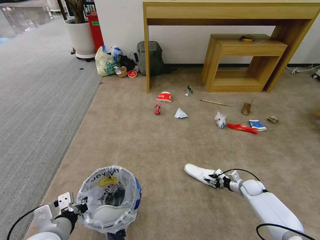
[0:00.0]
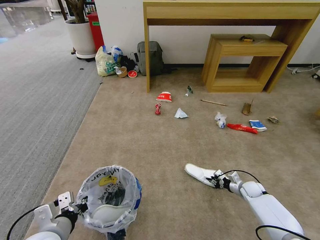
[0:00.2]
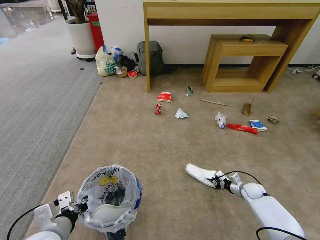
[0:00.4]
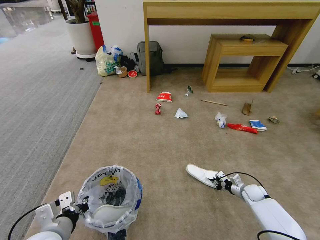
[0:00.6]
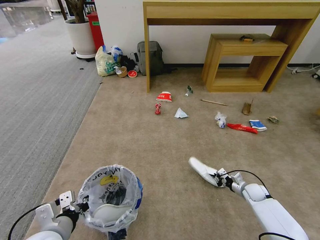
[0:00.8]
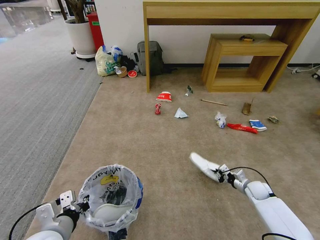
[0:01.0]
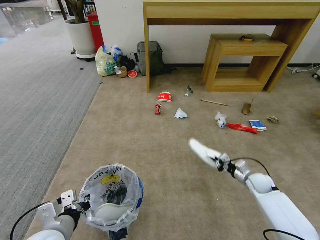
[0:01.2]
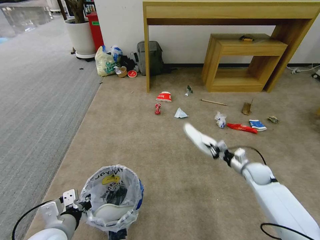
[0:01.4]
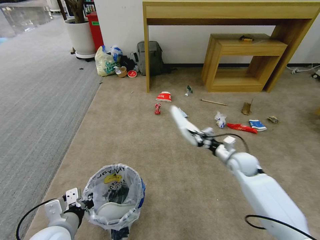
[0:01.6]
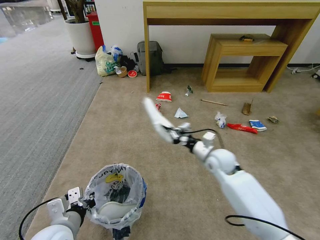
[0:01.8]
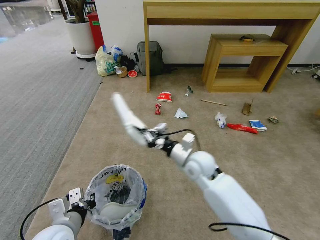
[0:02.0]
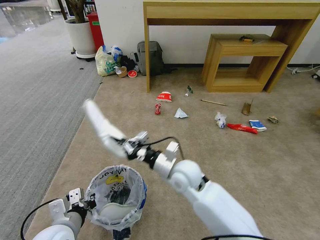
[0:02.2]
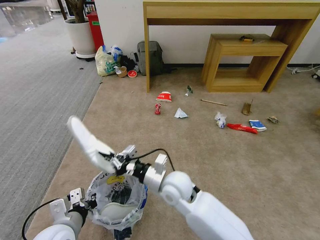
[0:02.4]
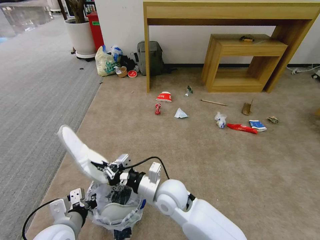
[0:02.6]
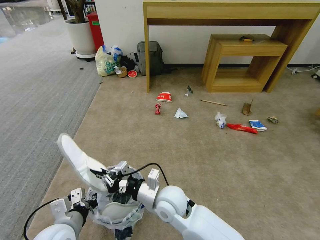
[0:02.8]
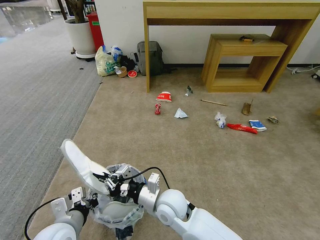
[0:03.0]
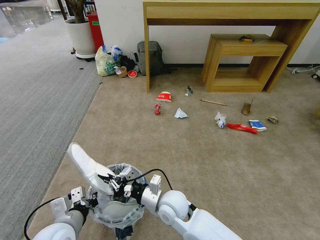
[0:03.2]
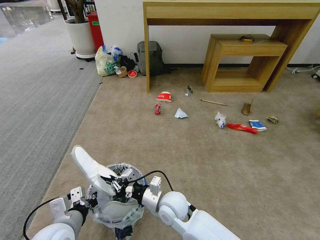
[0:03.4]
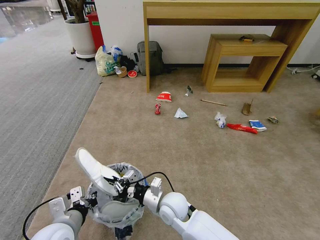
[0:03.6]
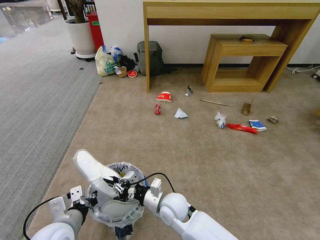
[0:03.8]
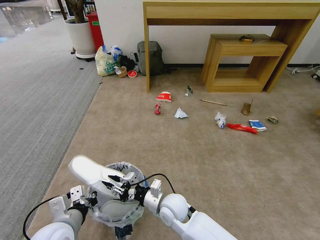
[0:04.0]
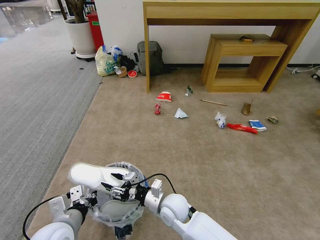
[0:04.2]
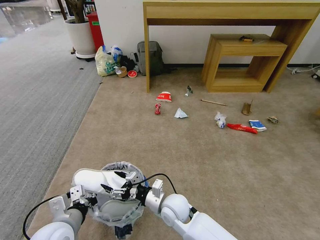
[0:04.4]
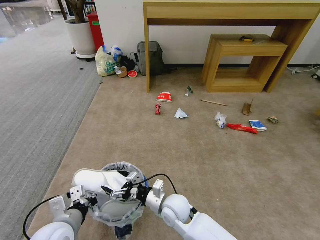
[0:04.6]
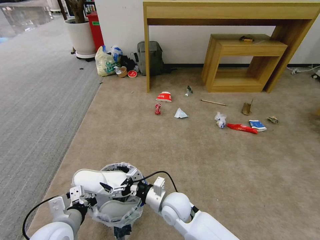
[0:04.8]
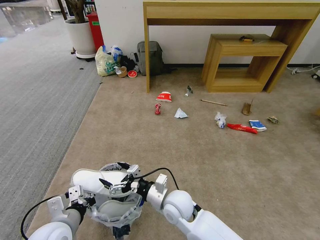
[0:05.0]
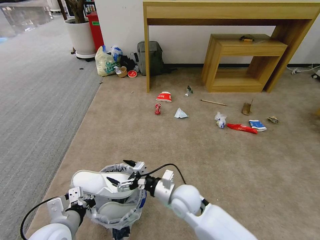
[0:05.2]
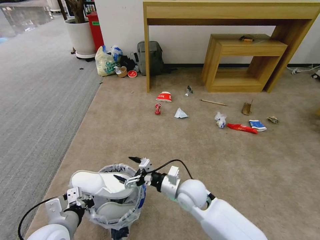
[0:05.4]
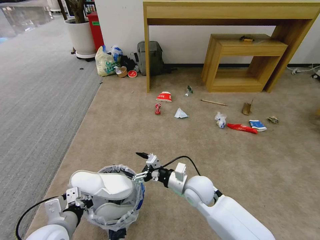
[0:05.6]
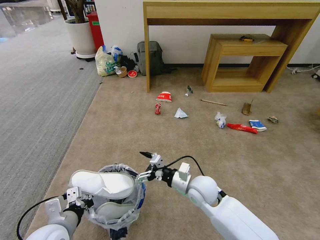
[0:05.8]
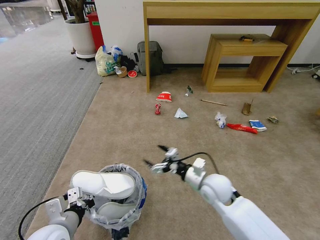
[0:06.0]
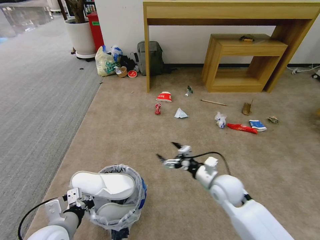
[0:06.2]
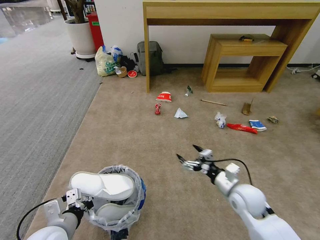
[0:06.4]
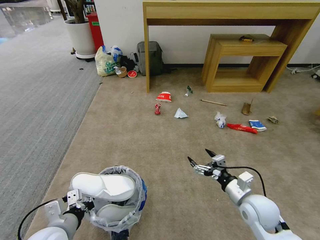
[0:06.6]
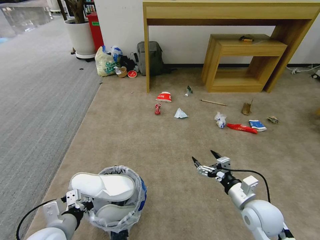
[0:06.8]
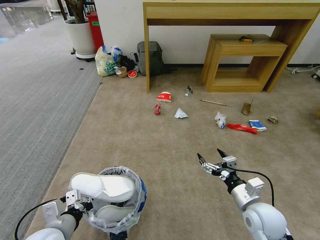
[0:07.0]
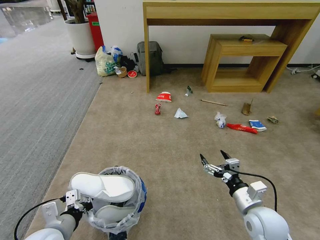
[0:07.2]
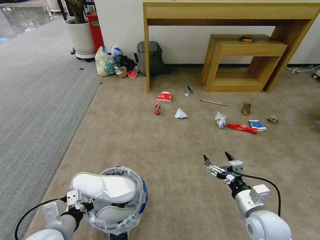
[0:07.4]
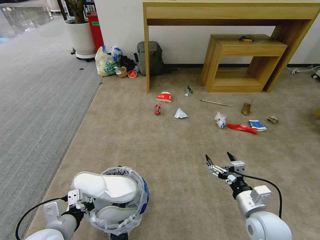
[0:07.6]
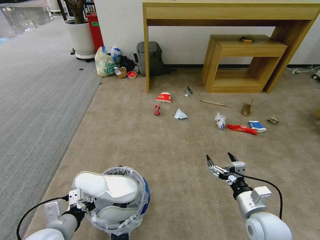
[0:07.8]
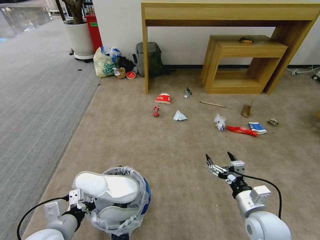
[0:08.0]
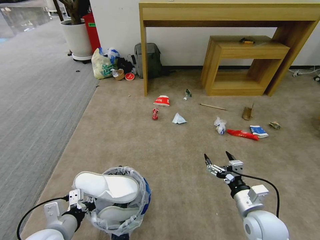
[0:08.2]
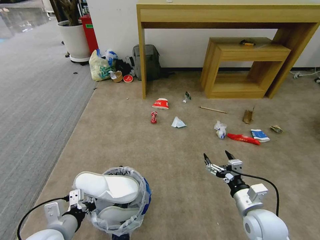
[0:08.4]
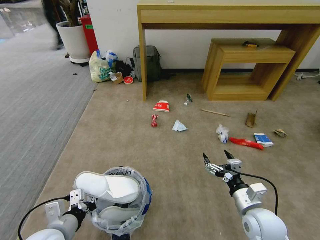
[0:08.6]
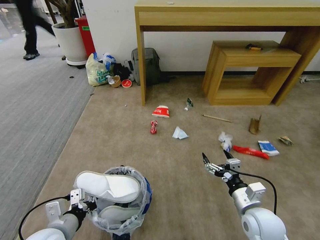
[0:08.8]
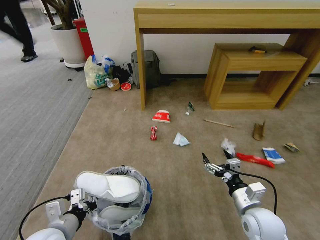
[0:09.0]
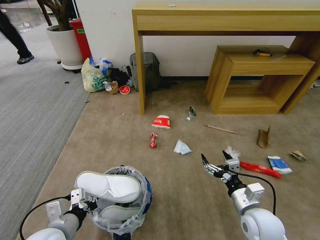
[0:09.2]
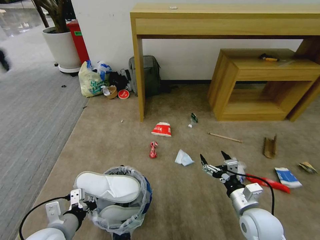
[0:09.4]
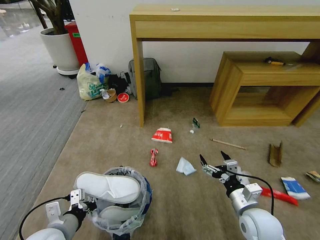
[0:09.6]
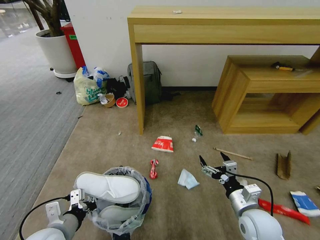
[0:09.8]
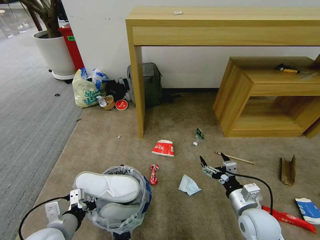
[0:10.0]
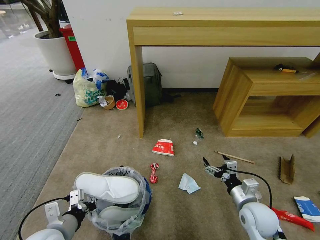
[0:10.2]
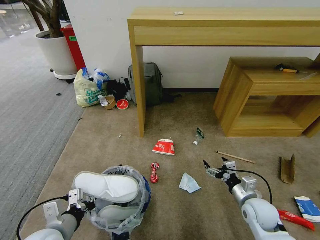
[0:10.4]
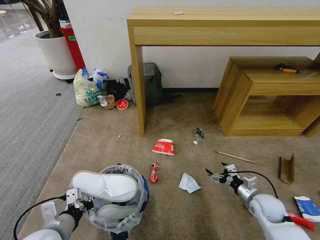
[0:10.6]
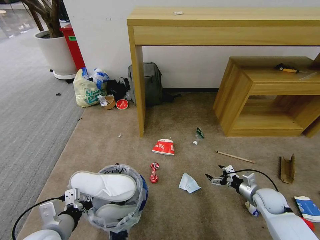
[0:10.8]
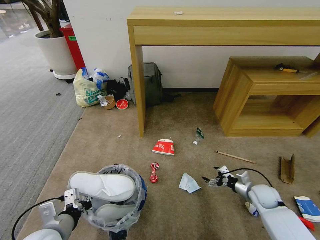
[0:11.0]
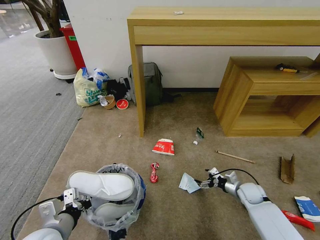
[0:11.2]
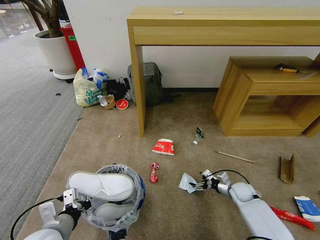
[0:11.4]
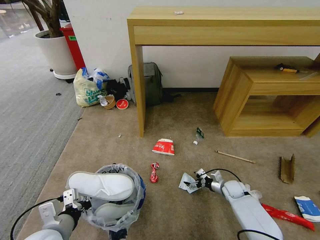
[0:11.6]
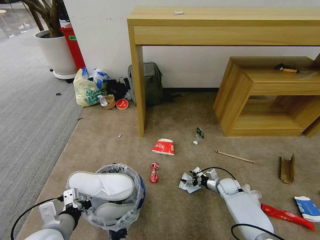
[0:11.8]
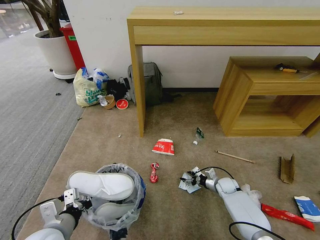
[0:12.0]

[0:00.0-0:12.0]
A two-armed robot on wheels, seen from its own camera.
Task of the whole recording: Pick up the trash bin and place the garbage on the floor into it.
0:00.0 to 0:01.6: The right gripper travels upward and to the left by approximately 20 cm.
0:01.6 to 0:03.0: The right gripper moves to the left and backward, about 35 cm.
0:03.0 to 0:04.4: The right gripper travels downward by about 5 cm, and opens its fingers.
0:04.4 to 0:06.0: The right gripper heads to the right and upward, covering about 15 cm.
0:06.0 to 0:07.6: The right gripper heads to the right and backward, covering about 15 cm.
0:09.0 to 0:10.4: The right gripper goes approximately 10 cm downward, forward and to the right.
0:10.4 to 0:12.0: The right gripper heads forward and downward, covering roughly 20 cm.

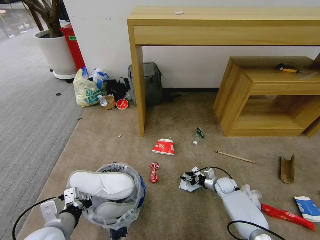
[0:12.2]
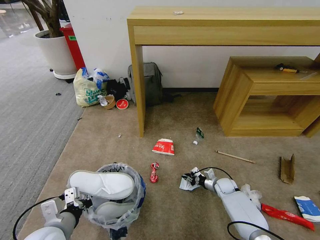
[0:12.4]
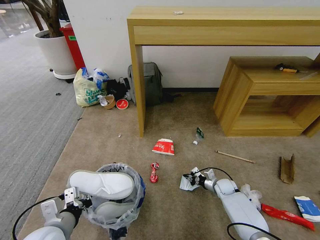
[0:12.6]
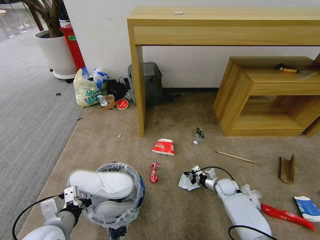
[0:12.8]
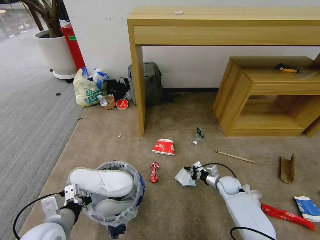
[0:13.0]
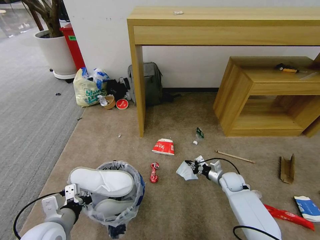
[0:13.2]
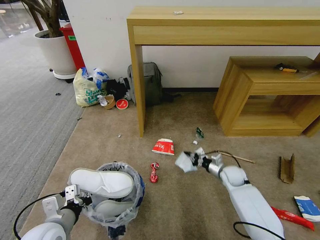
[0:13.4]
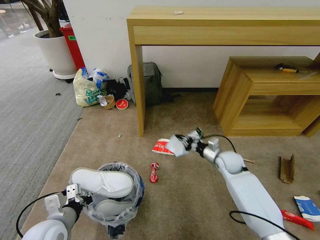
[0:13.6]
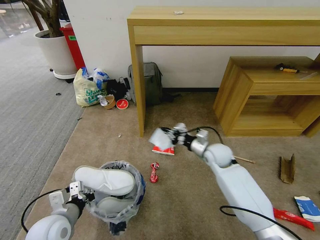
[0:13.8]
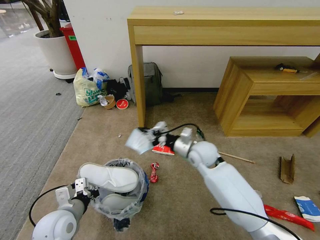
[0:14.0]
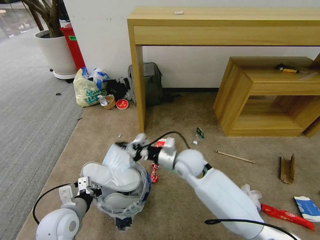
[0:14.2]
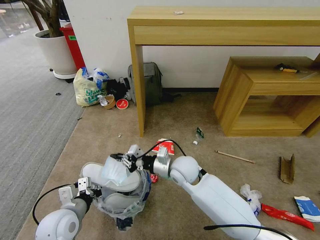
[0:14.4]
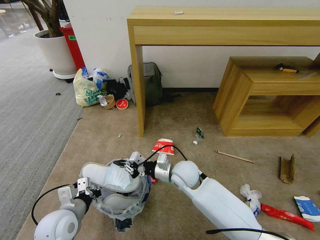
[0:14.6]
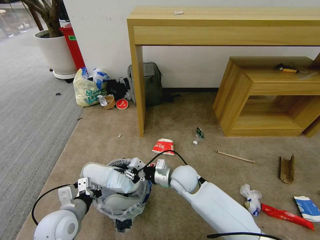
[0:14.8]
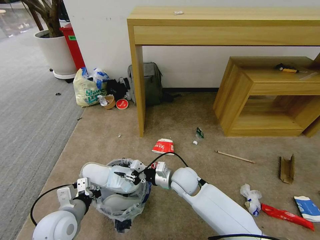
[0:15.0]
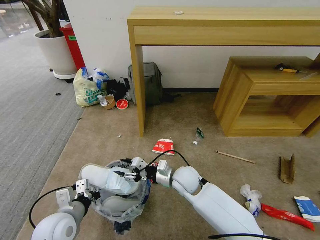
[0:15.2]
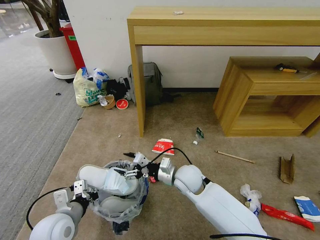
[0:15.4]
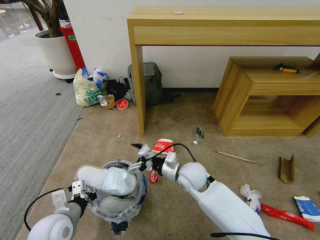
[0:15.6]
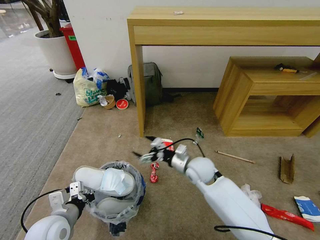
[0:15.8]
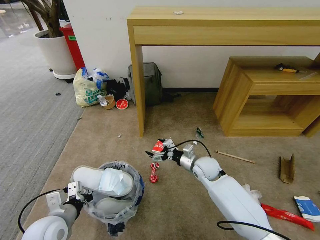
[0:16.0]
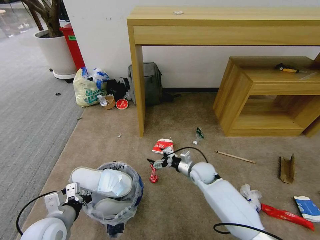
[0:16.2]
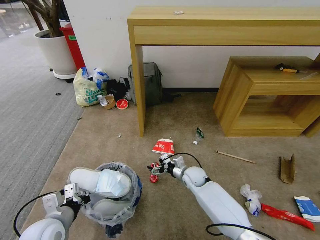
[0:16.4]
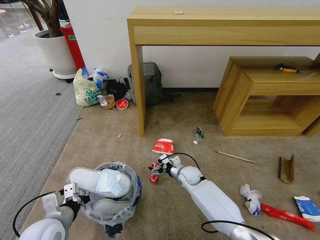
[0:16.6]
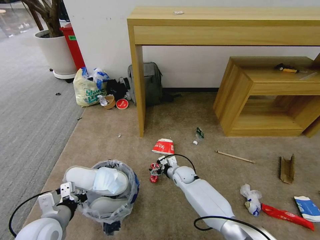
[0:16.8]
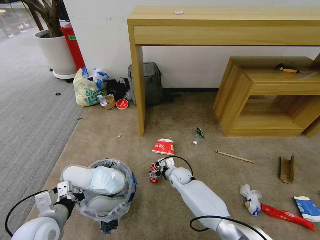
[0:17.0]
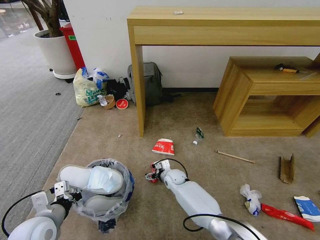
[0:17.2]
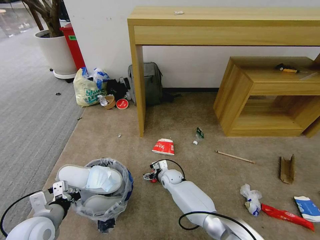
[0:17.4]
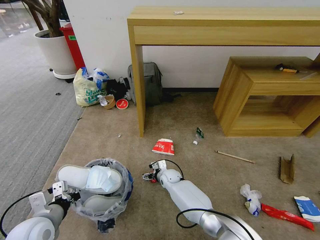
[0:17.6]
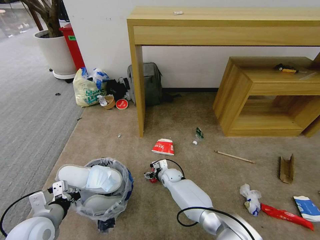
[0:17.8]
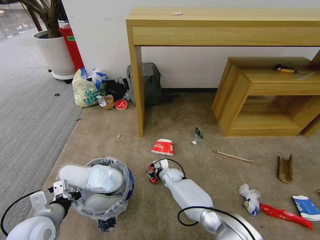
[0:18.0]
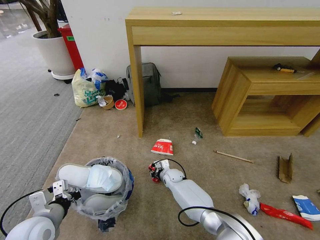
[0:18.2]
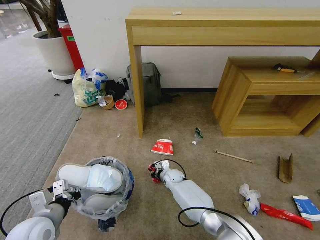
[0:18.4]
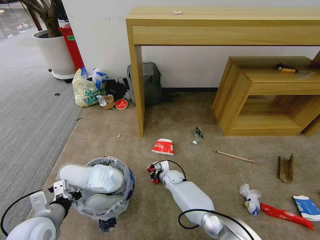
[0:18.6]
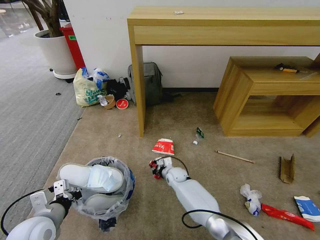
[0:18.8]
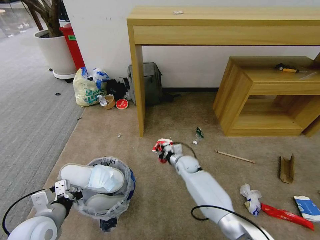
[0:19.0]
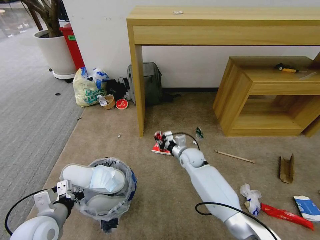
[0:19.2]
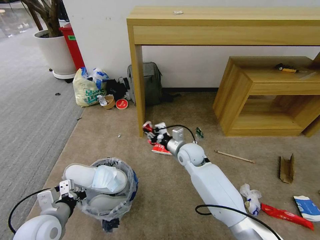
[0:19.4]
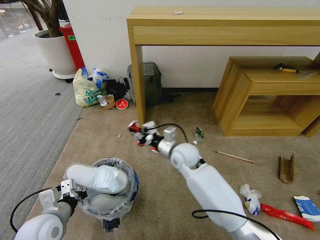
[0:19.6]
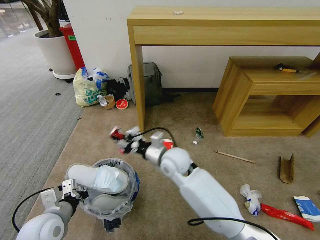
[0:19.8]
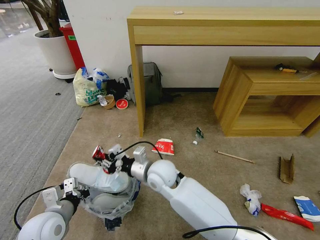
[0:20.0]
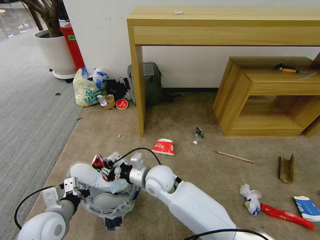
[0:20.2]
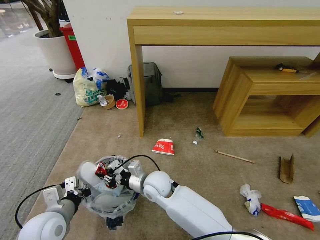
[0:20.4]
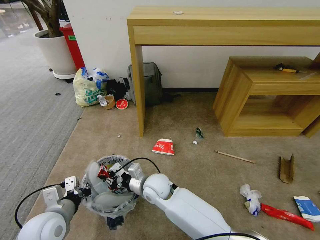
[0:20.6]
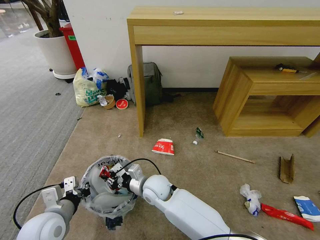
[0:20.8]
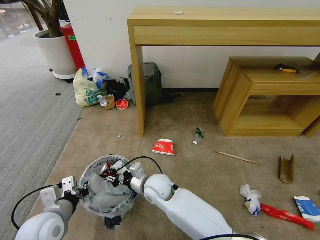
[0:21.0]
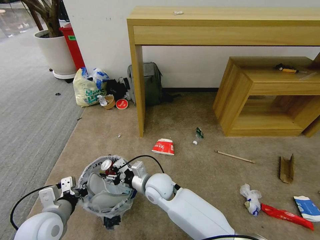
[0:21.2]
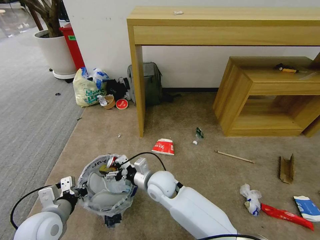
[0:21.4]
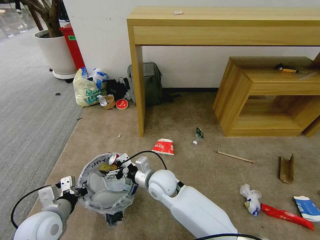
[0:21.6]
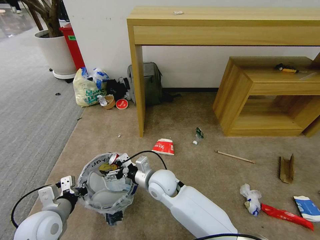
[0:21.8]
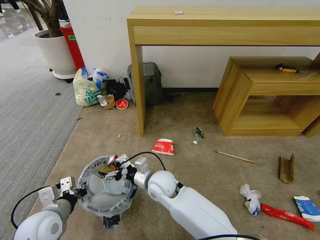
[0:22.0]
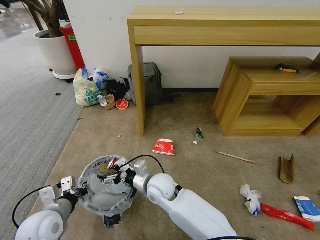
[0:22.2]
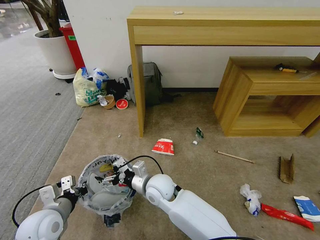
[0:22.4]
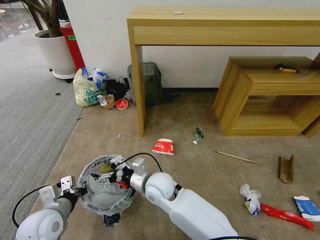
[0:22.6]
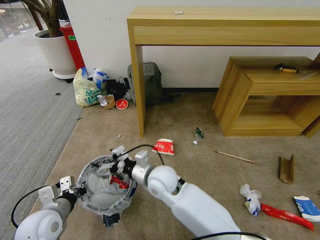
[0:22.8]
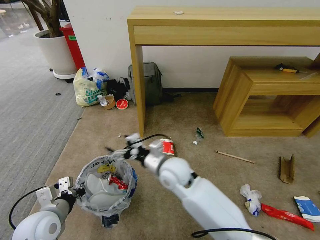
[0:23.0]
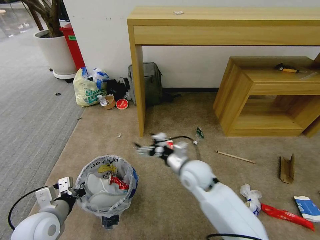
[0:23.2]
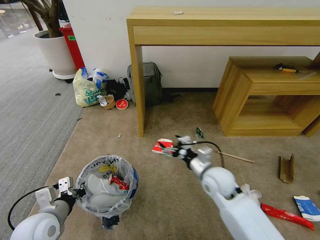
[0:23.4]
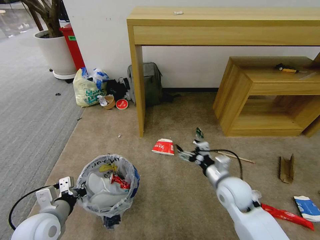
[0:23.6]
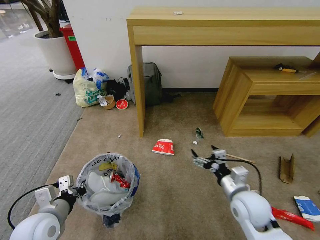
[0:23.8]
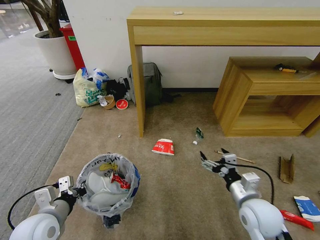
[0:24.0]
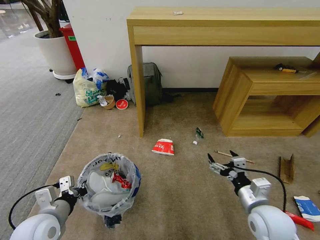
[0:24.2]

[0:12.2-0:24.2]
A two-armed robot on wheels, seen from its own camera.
Task of the whole recording: Pick up the trash bin and place the garbage on the floor into it.
0:12.2 to 0:13.8: The right gripper heads upward and to the left, covering roughly 25 cm, and closes up.
0:13.8 to 0:15.2: The right gripper moves to the left and backward, some 15 cm, and opens.
0:15.2 to 0:16.6: The right gripper shifts about 15 cm downward and forward, and opens its fingers.
0:16.6 to 0:18.2: The right gripper is displaced downward and to the left by approximately 10 cm, and closes up.
0:18.2 to 0:19.8: The right gripper heads upward, covering approximately 25 cm.
0:19.8 to 0:21.2: The right gripper heads downward, covering roughly 10 cm, and opens its fingers.
0:21.2 to 0:22.6: The right gripper opens its fingers.
0:22.6 to 0:24.2: The right gripper shifts roughly 30 cm to the right.
